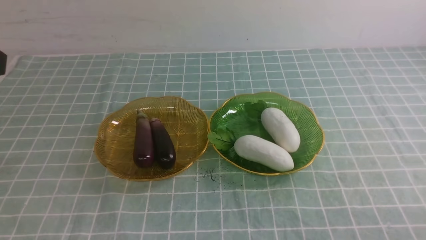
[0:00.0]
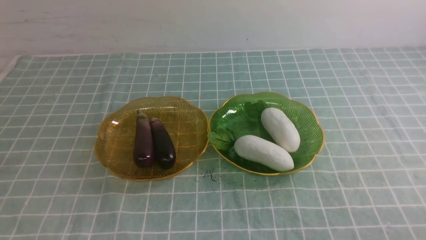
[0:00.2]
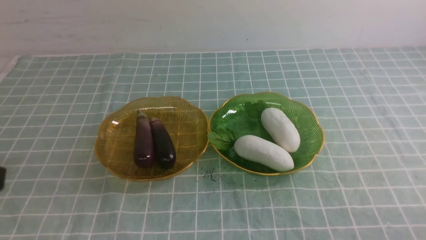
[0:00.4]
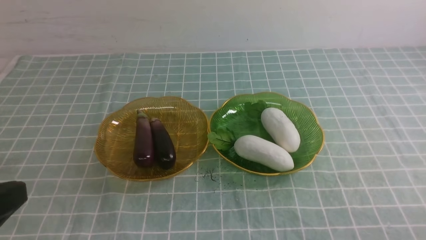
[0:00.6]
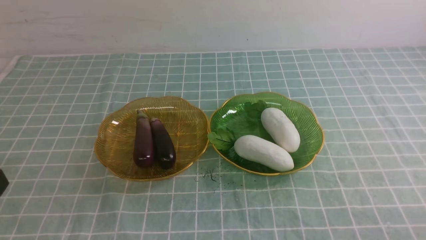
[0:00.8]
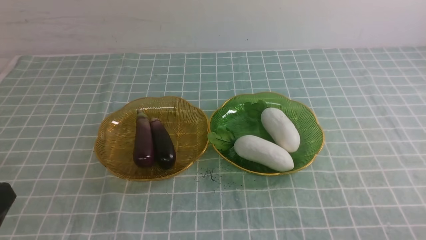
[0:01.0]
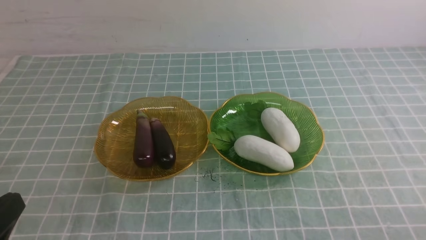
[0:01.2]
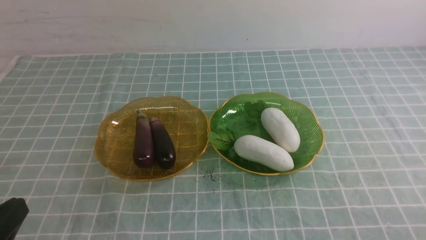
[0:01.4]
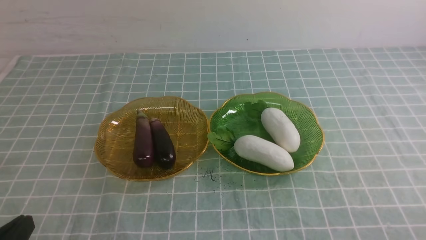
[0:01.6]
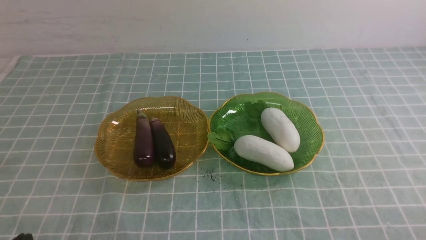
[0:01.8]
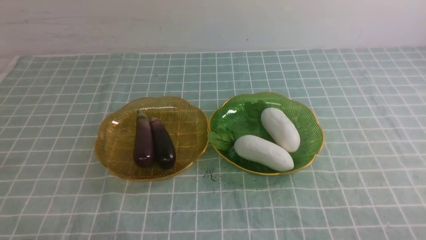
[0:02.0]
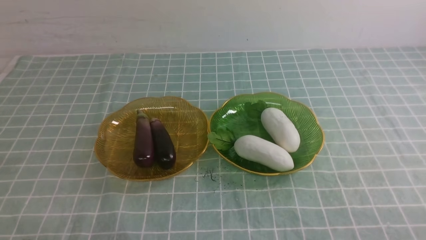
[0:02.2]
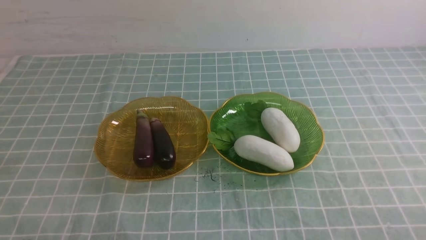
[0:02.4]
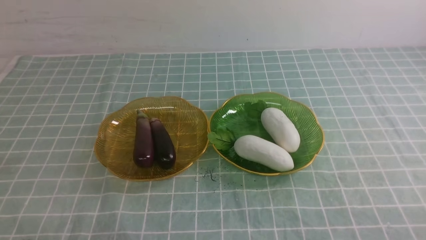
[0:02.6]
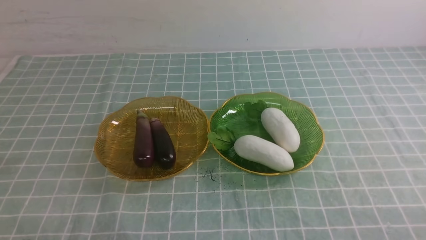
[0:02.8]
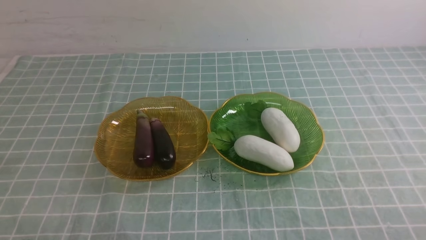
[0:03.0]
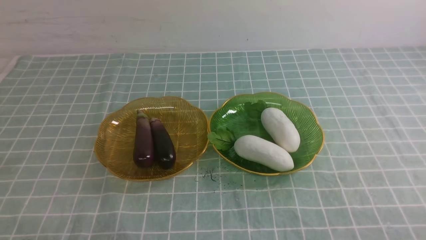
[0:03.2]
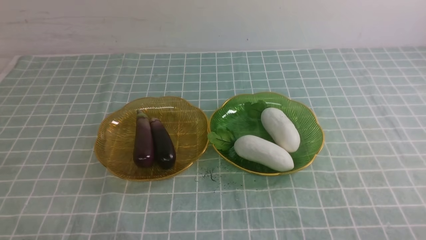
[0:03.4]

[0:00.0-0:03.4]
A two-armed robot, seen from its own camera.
0:00.0 to 0:01.6: The left gripper goes approximately 25 cm downward and backward.
0:01.6 to 0:03.4: The left gripper heads downward, covering approximately 5 cm.
